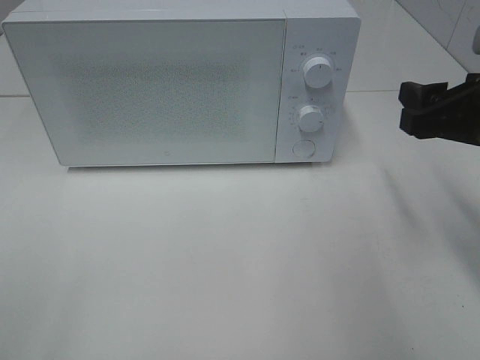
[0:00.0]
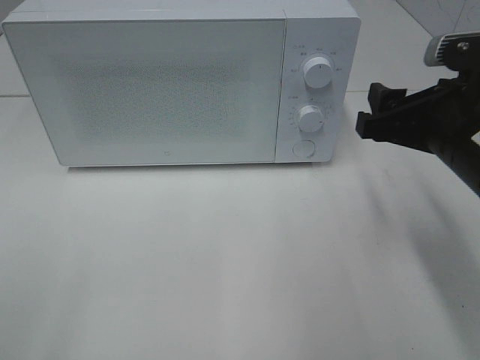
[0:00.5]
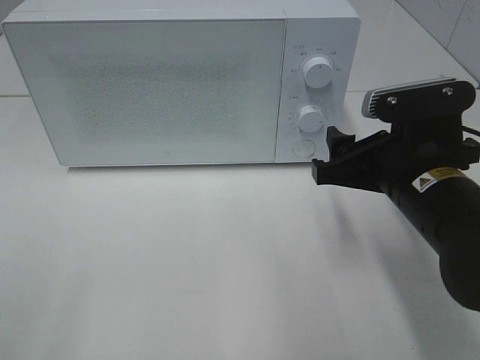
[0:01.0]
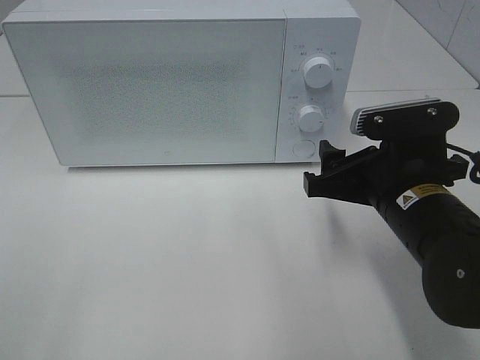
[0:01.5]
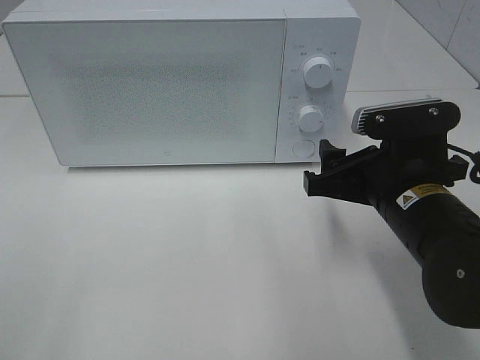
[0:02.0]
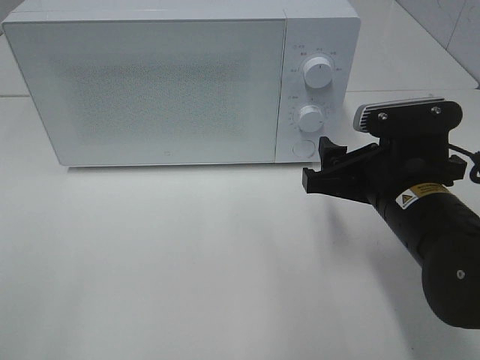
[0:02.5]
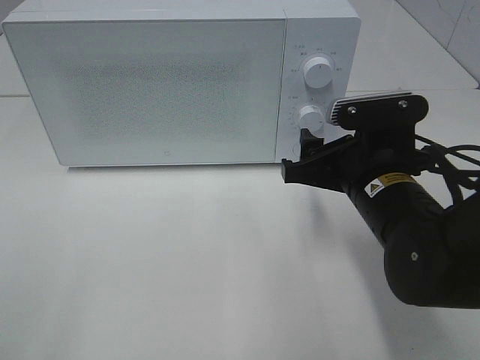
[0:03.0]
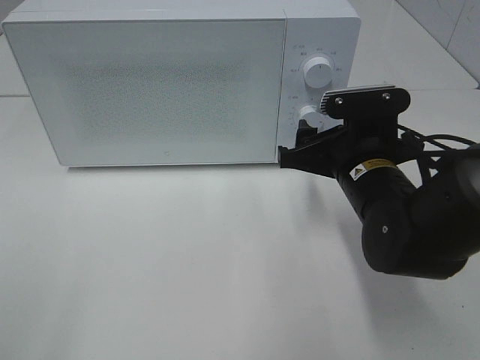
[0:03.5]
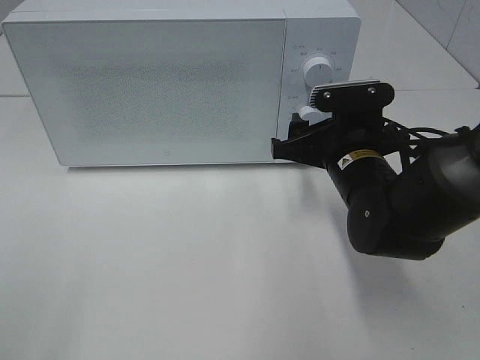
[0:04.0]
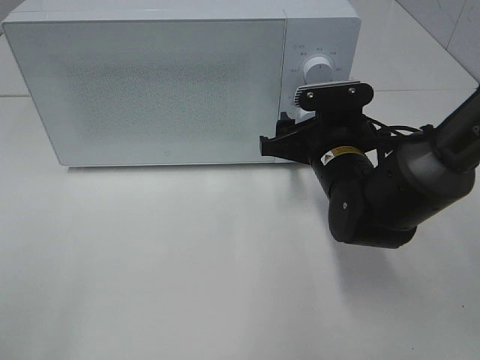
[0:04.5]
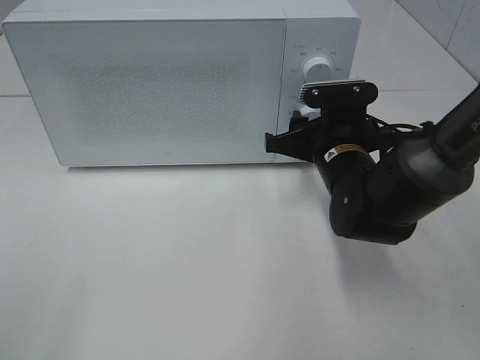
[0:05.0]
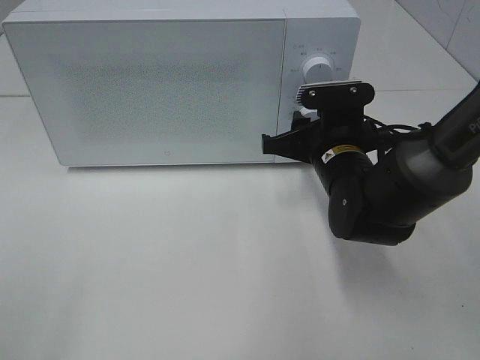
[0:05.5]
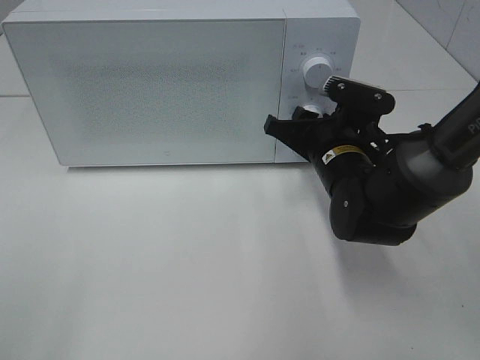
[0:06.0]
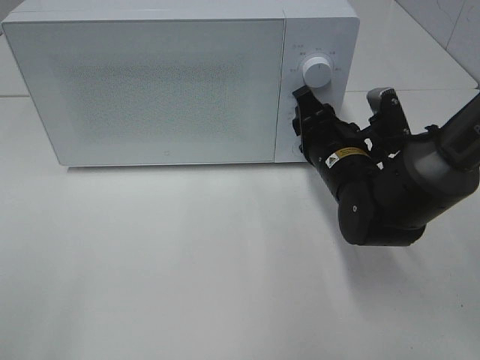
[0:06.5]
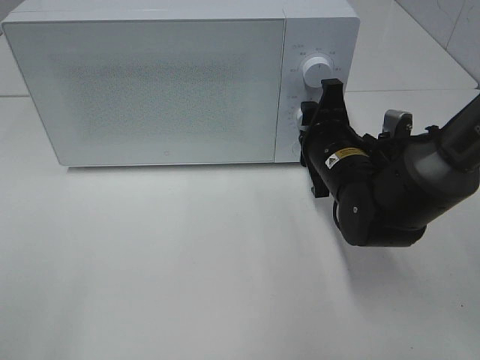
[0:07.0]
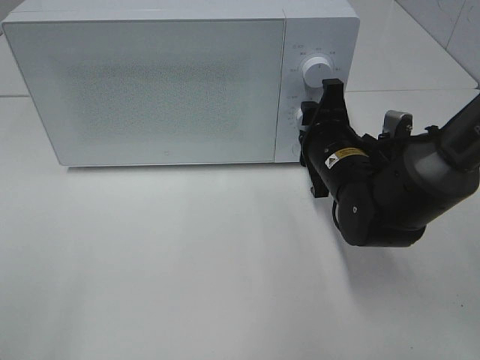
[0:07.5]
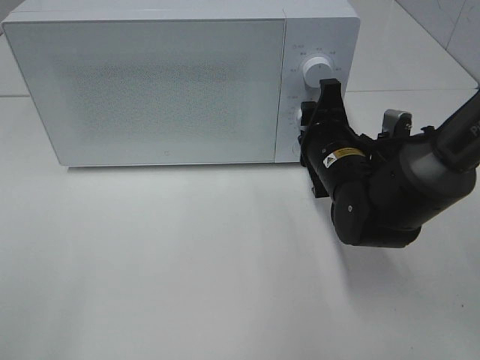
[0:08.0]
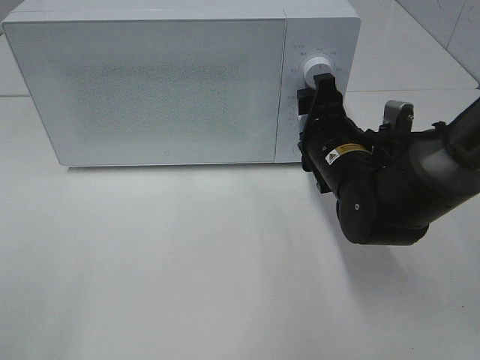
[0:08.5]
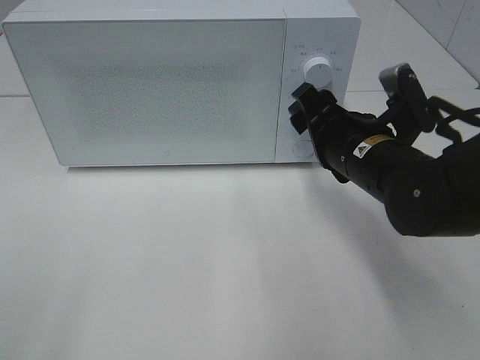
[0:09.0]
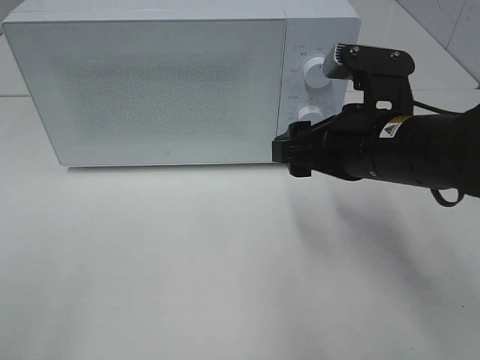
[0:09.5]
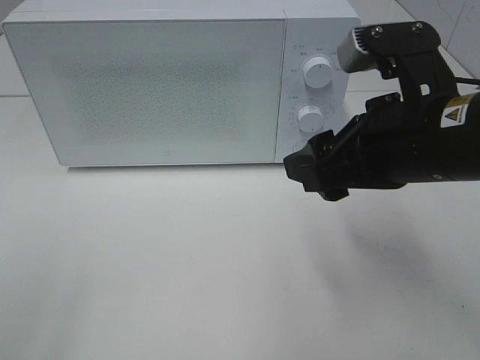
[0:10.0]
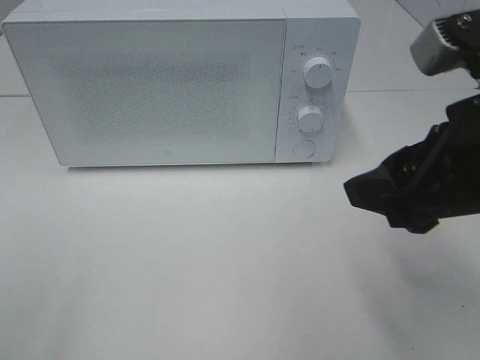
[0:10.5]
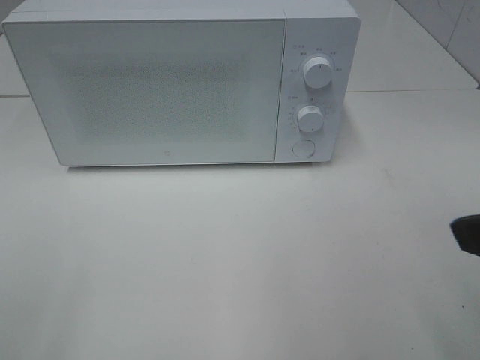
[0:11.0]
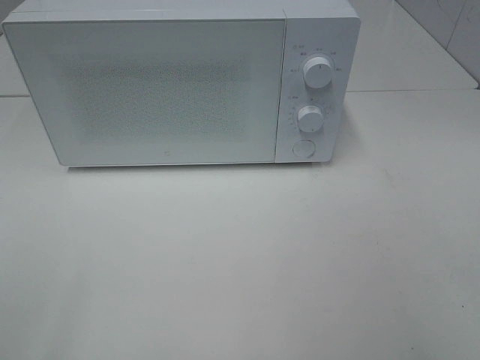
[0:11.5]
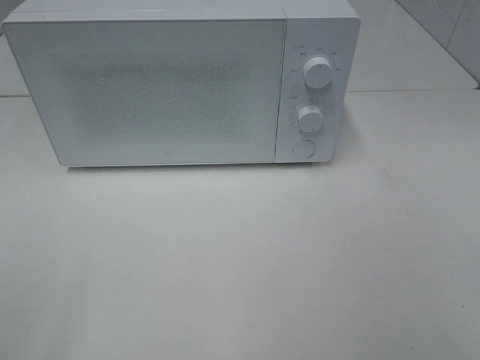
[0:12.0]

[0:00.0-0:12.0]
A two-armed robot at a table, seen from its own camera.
Task of the whole recording: Heat the burger.
Step, 0.0 to 8.5 s: Right hand: twist timer button.
0.0 to 2.0 s: The right gripper shifts approximately 10 cm to the left and downward.
2.0 to 4.0 s: The right gripper moves forward, some 5 cm.
4.0 to 6.0 s: The right gripper closes up.
8.0 to 10.0 s: The right gripper heads upward and backward, covering about 20 cm.
10.0 to 12.0 s: The right gripper moves backward and to the right, some 25 cm.

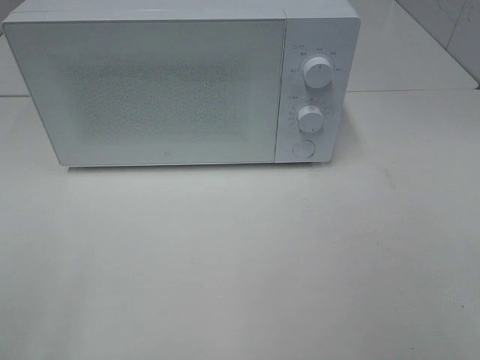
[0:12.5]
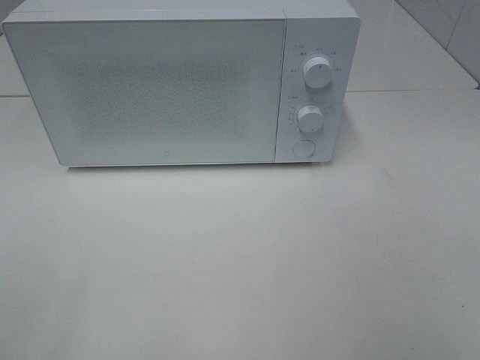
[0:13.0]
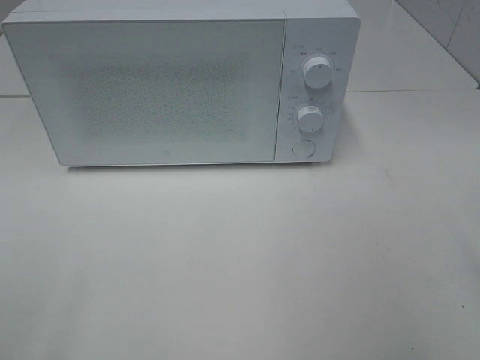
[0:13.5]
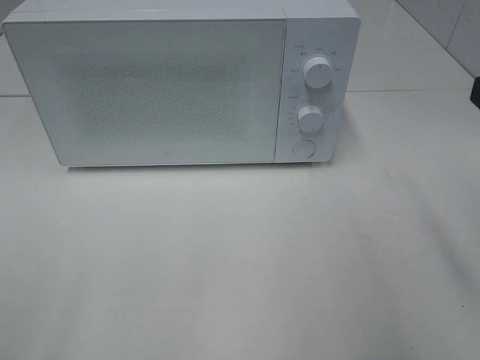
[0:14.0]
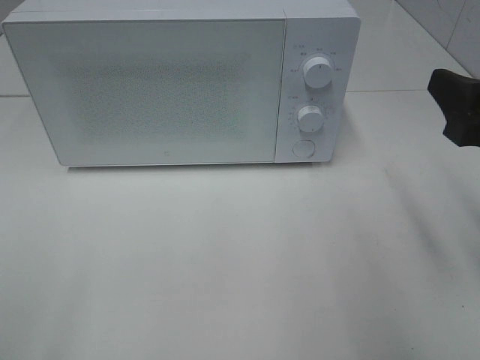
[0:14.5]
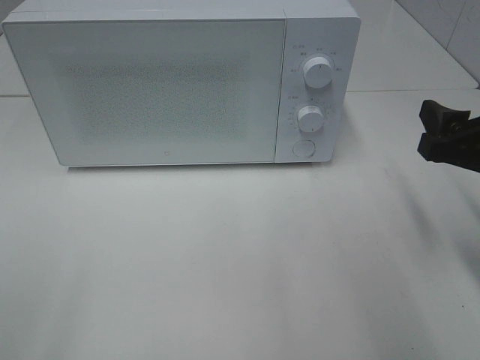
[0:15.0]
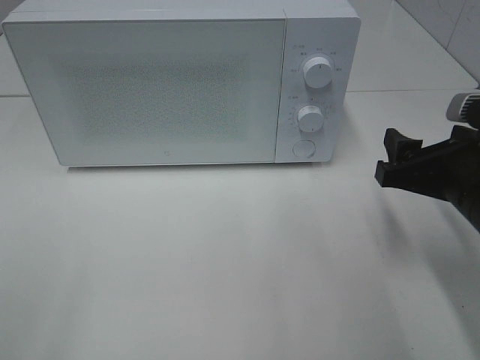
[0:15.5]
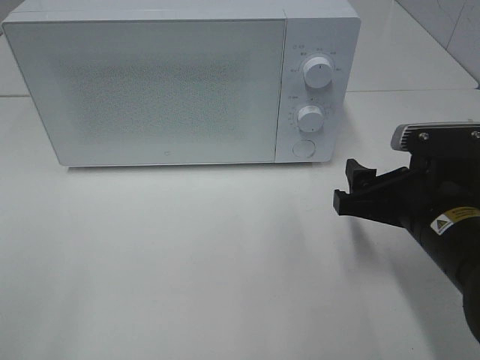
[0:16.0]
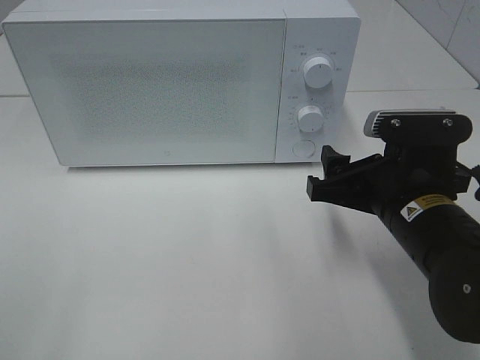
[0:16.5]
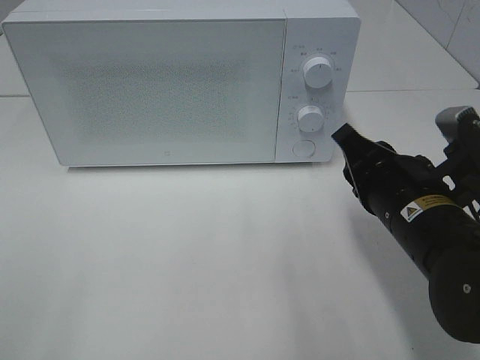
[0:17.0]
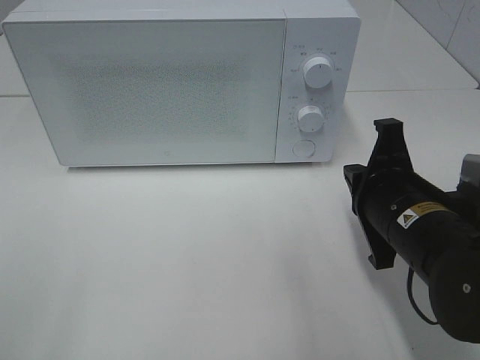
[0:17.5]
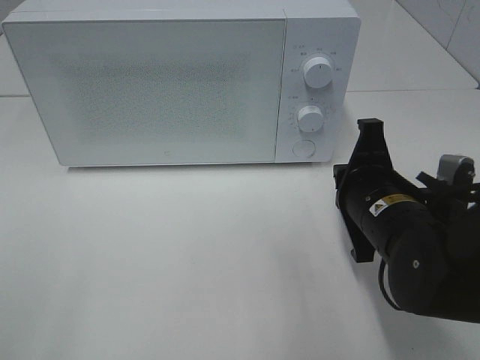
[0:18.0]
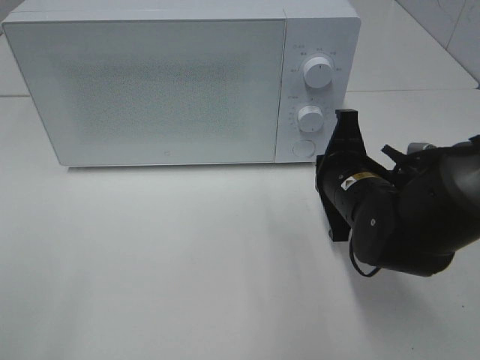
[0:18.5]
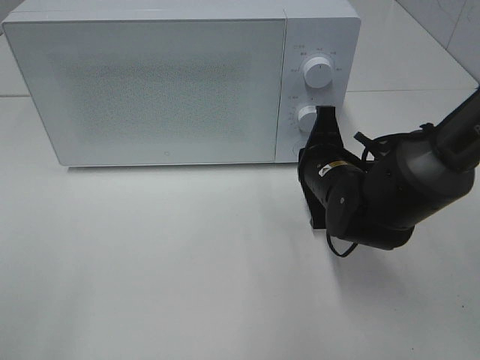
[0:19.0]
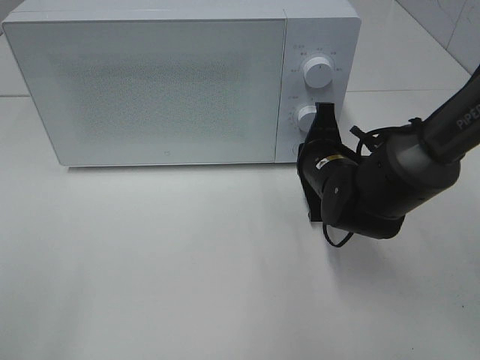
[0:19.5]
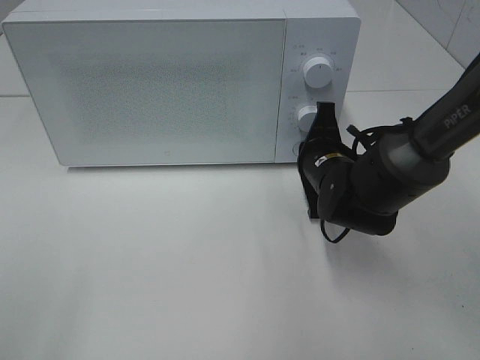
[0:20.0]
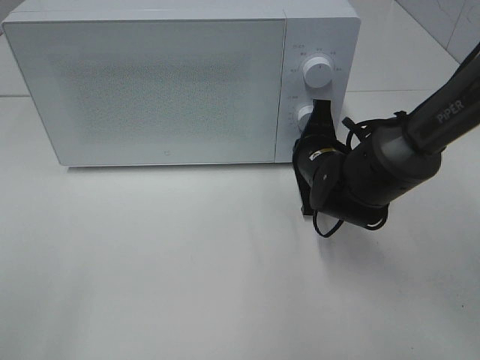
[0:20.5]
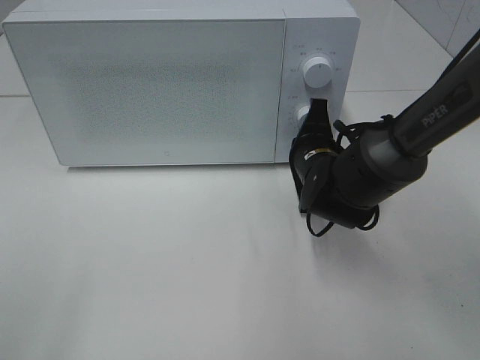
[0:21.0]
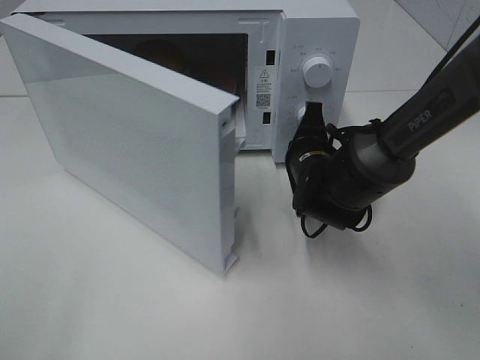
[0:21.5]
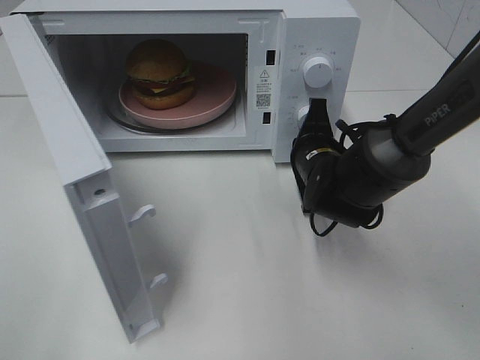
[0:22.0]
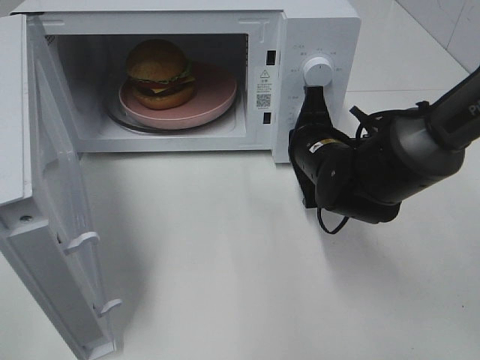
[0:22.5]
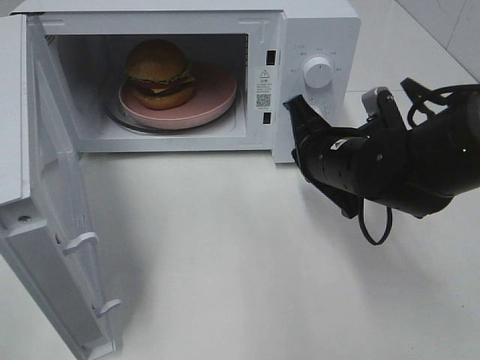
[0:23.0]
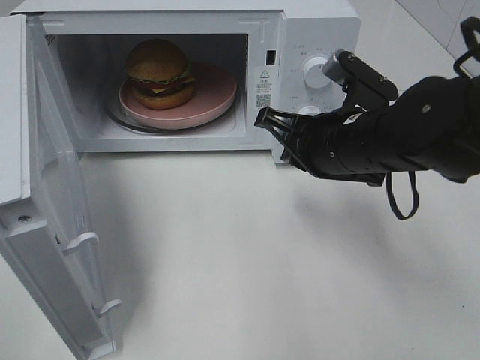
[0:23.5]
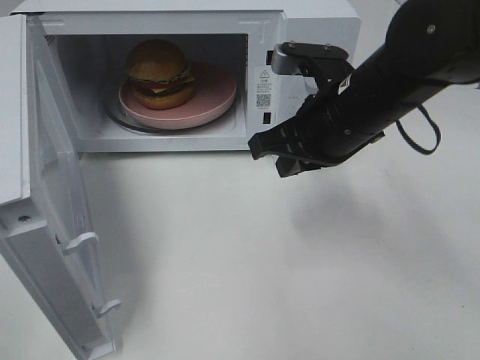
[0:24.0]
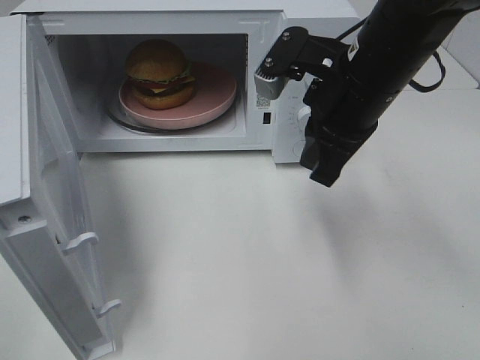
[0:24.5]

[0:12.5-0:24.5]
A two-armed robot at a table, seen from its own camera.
Task of the whole recording: Heat the burger.
Step, 12.5 to 22.0 s: Right hand: press the switch.
12.5 to 14.5 s: The right gripper goes about 20 cm forward.
14.5 to 16.5 s: The right gripper is displaced to the left and downward by some 15 cm.
16.5 to 18.5 s: The right gripper travels forward by some 5 cm, and closes.
18.5 to 20.5 s: The right gripper goes roughly 5 cm forward.
22.5 to 24.5 s: The right gripper heads upward, covering some 15 cm.

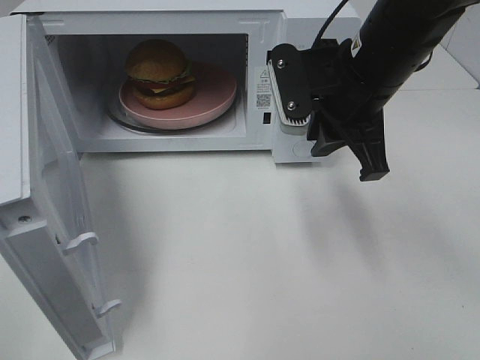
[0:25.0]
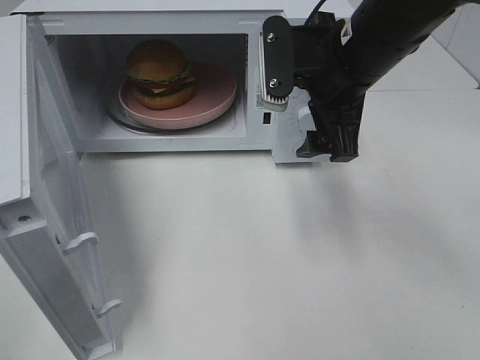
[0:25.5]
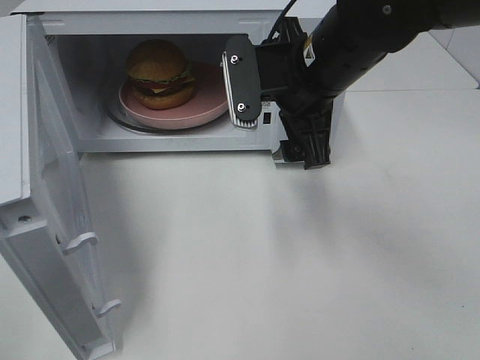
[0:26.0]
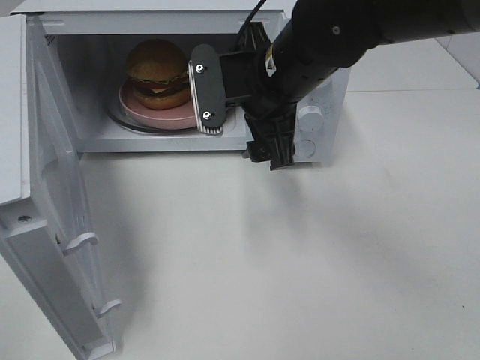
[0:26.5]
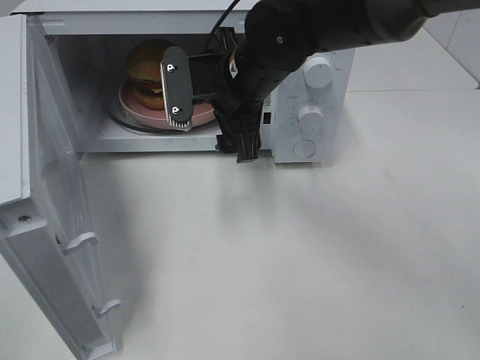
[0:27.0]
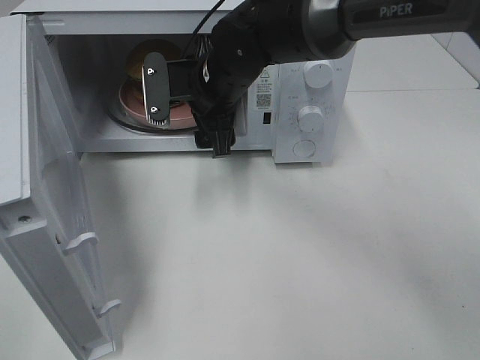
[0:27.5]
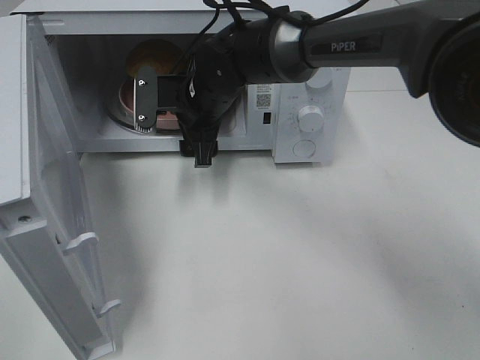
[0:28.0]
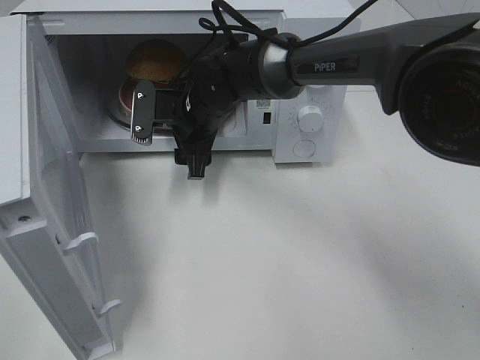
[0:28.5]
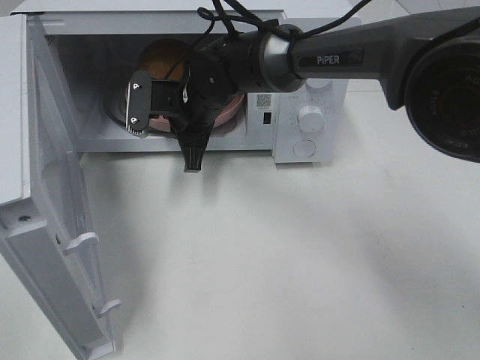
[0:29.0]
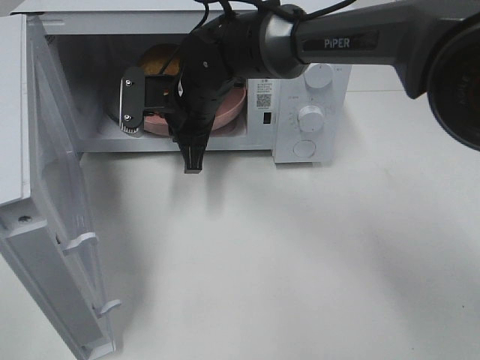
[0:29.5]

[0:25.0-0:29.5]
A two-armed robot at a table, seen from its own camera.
Task of the whole recording: Heat the burger.
Step, 25.0 to 28.5 s: Right hand: grab the plate with the hamburger.
25.0 to 27.0 s: The right gripper heads to the left and forward, covering roughly 10 cm, and opens up.
27.0 to 29.5 s: The right gripper goes some 5 cm to the left, and closes up.
